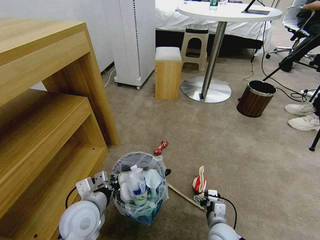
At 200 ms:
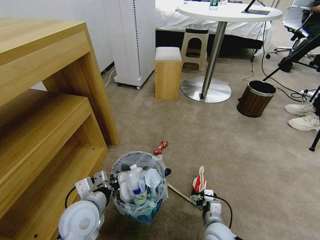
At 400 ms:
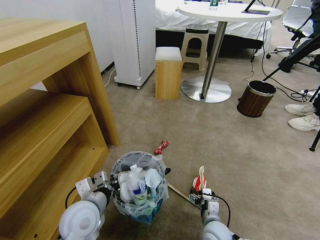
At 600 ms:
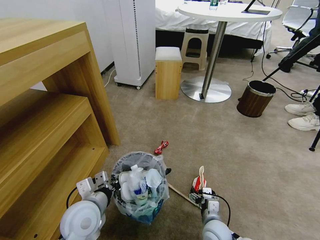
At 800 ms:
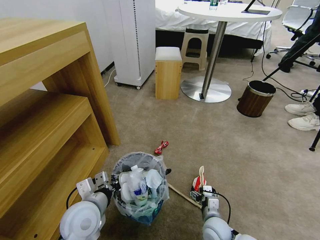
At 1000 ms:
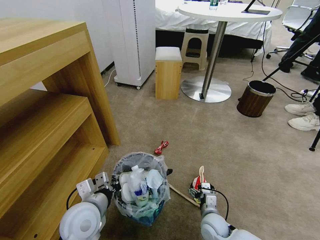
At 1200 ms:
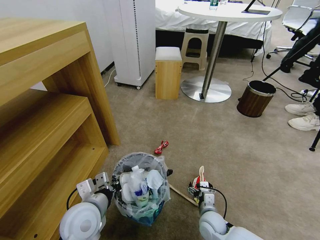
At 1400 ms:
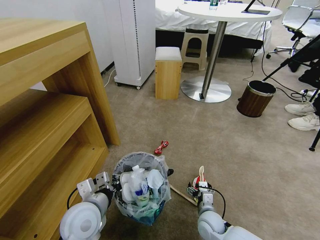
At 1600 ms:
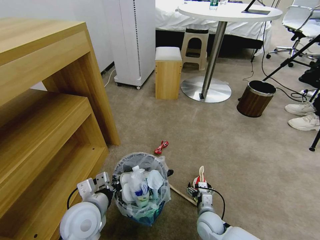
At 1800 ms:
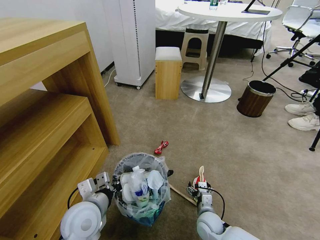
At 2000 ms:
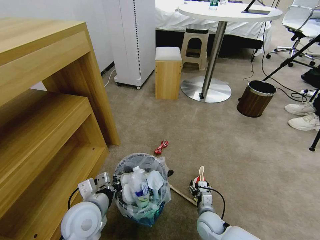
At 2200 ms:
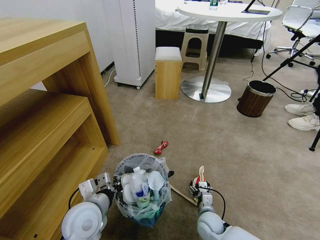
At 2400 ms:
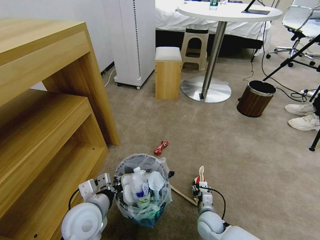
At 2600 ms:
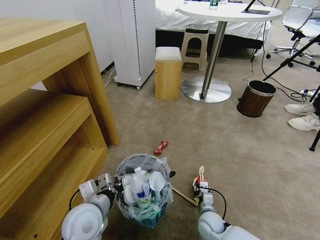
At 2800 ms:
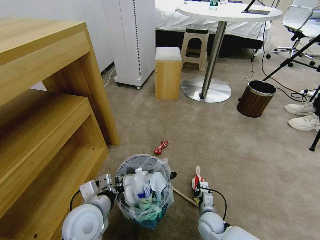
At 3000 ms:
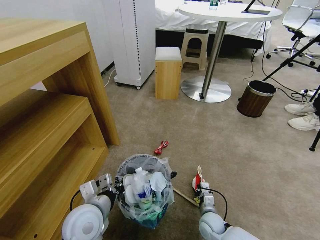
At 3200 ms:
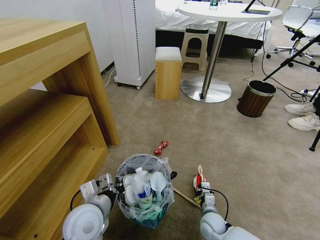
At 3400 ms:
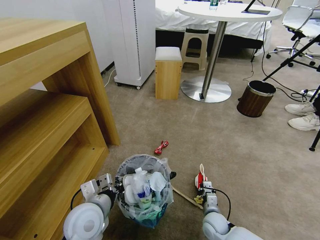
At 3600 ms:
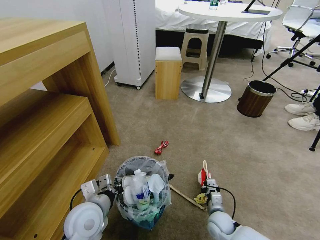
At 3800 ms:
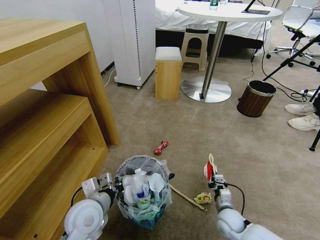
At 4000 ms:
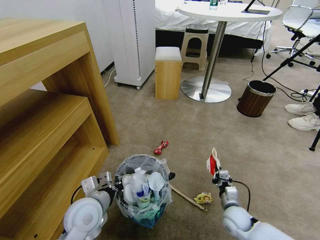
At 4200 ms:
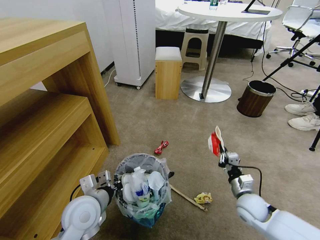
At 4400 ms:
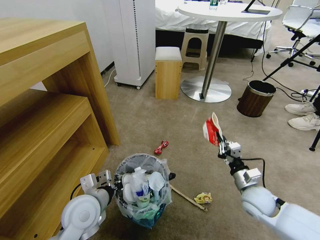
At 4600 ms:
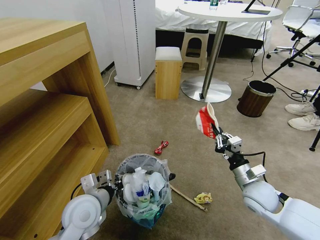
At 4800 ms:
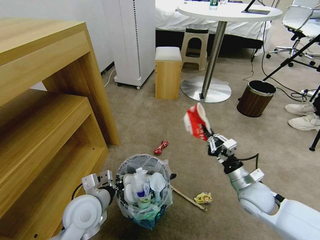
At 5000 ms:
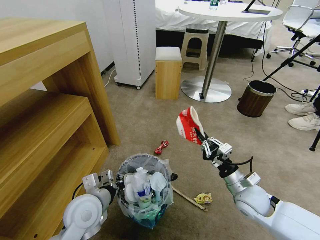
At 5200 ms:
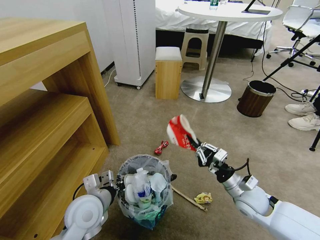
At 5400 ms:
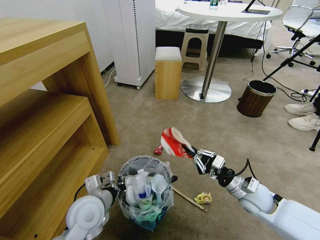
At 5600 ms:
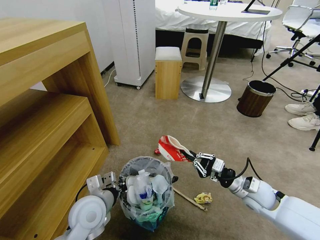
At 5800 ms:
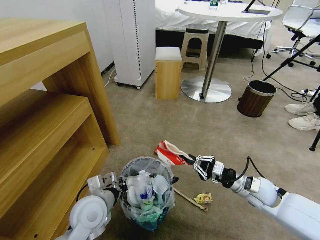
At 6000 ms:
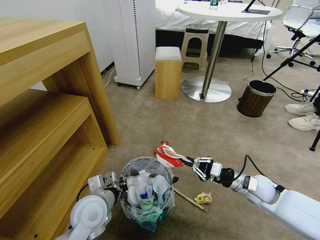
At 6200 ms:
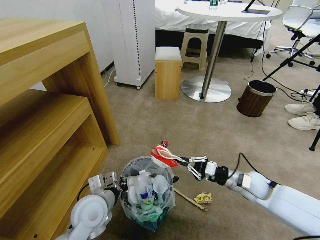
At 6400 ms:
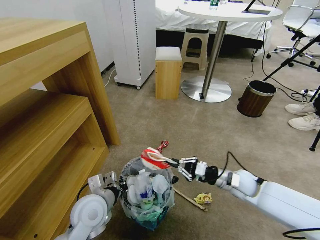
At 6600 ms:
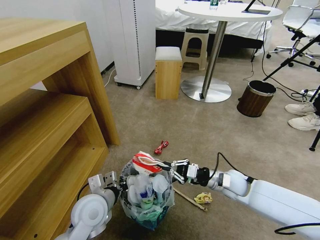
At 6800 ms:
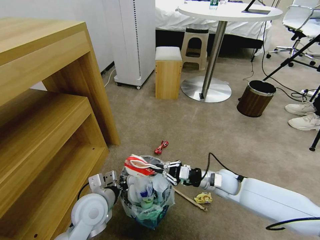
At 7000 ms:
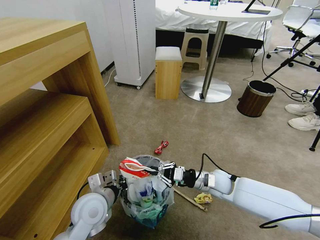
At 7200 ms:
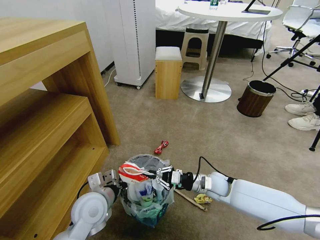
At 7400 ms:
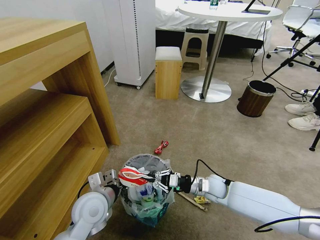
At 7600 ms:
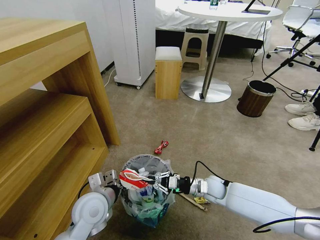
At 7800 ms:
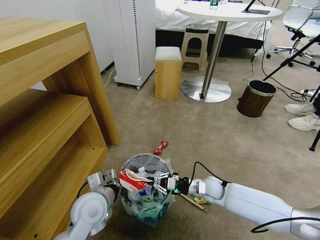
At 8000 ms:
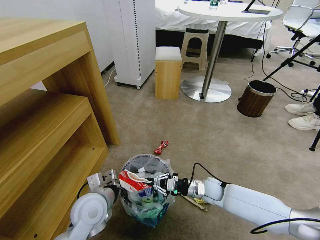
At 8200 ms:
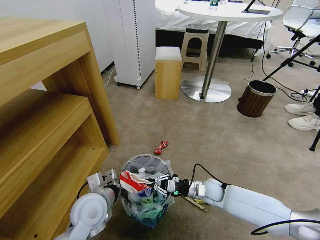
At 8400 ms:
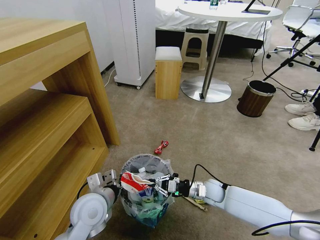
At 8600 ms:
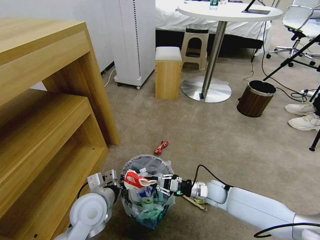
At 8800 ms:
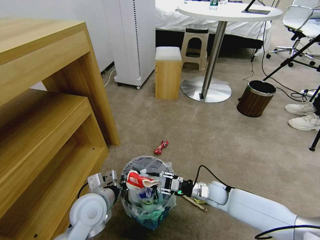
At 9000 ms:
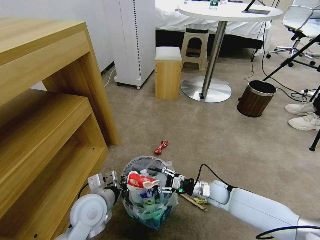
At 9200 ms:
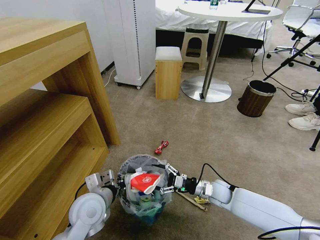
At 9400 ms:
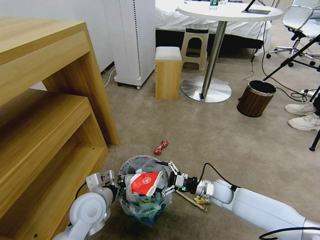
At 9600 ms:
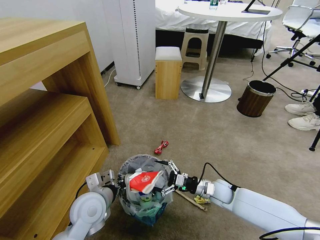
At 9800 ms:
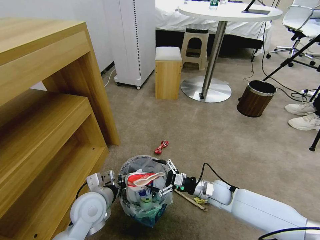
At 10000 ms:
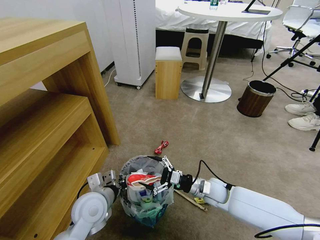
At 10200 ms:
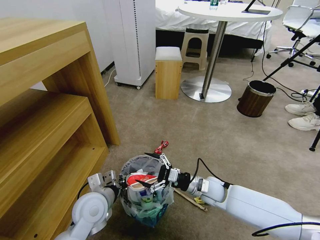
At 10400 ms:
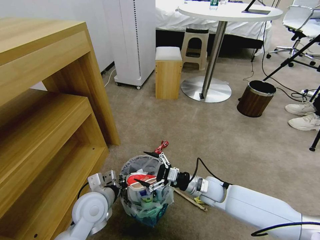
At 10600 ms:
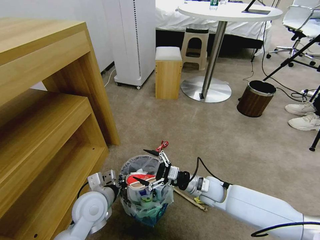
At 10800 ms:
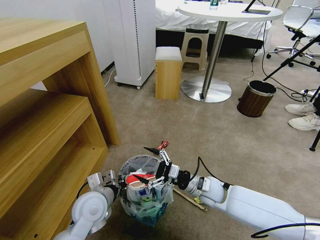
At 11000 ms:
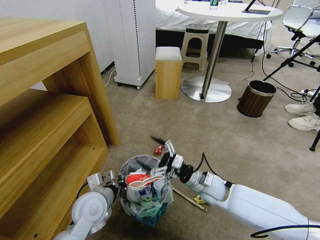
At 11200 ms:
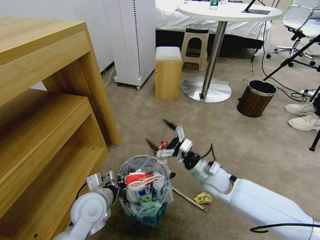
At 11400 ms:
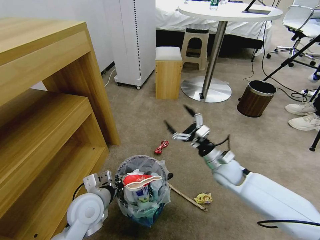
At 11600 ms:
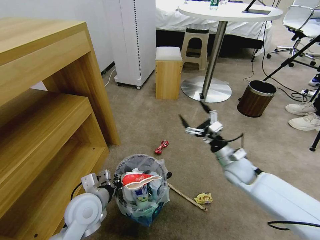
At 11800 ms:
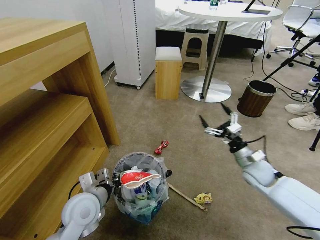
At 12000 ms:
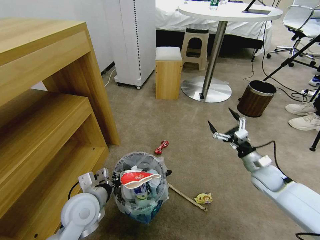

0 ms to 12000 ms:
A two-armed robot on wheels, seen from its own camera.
Task of the whole recording: Pick up the trash bin and place the garbage on the floor into it.
0 ms to 1600 ms: The right gripper shifts by about 5 cm.
1600 ms to 3000 ms: The right gripper closes.
3000 ms to 4400 ms: The right gripper is displaced upward and to the right by some 20 cm.
6000 ms to 7600 ms: The right gripper goes some 15 cm to the left and downward.
7600 ms to 9000 ms: The right gripper opens its fingers.
9000 ms to 10400 ms: The right gripper is displaced upward by roughly 5 cm, and opens up.
10400 ms to 12000 ms: The right gripper goes approximately 20 cm to the right.

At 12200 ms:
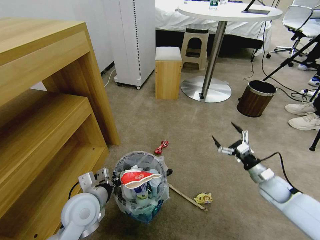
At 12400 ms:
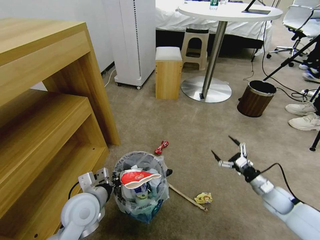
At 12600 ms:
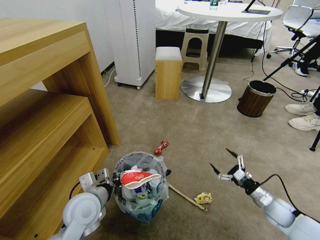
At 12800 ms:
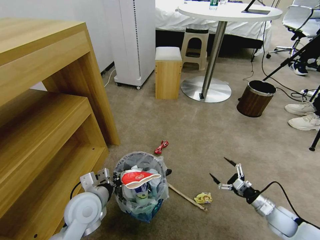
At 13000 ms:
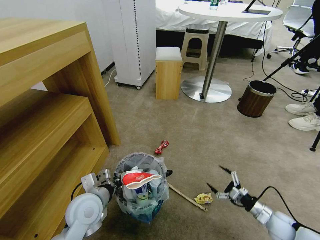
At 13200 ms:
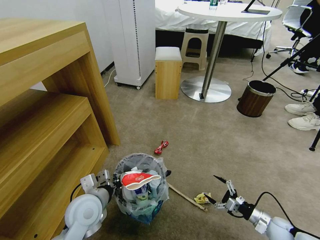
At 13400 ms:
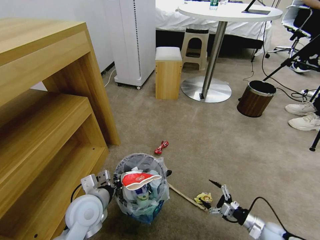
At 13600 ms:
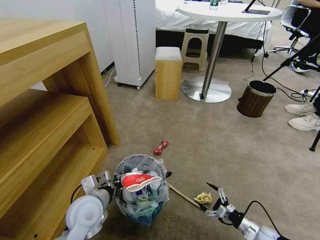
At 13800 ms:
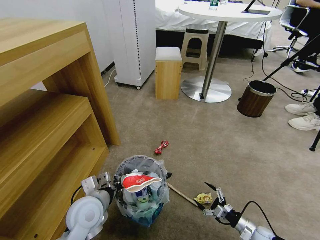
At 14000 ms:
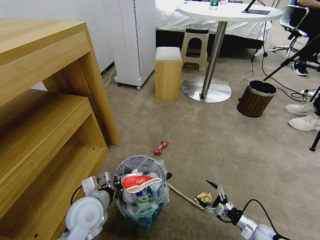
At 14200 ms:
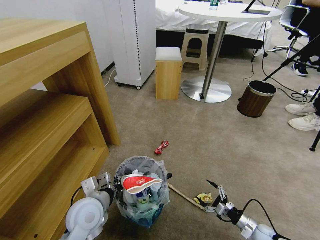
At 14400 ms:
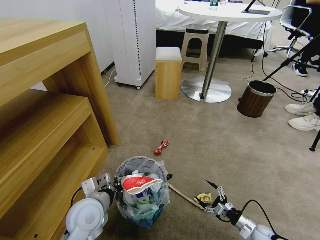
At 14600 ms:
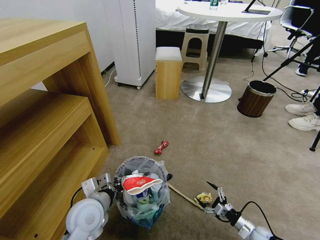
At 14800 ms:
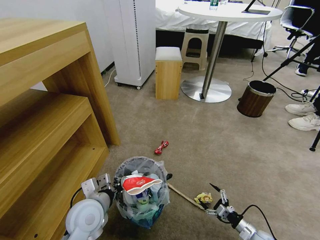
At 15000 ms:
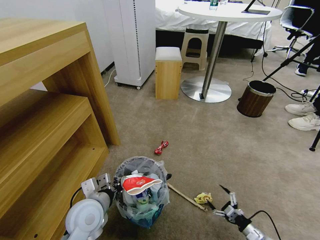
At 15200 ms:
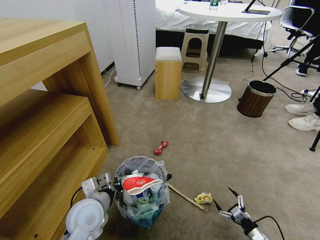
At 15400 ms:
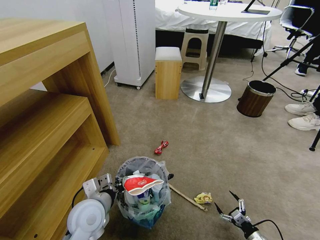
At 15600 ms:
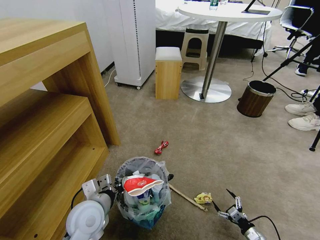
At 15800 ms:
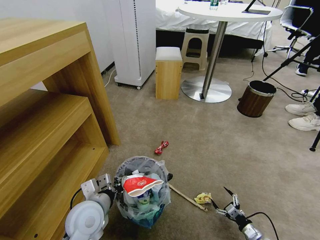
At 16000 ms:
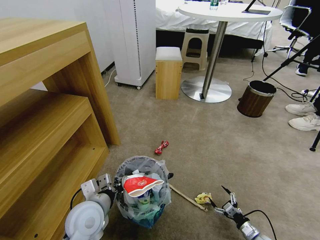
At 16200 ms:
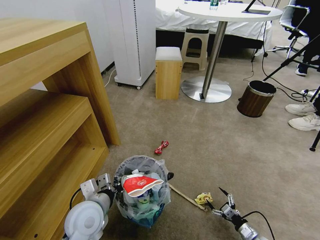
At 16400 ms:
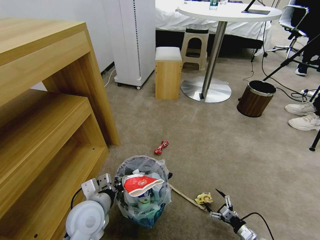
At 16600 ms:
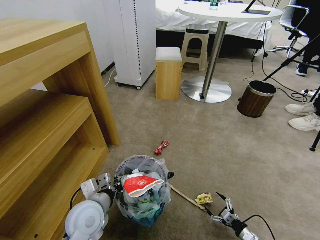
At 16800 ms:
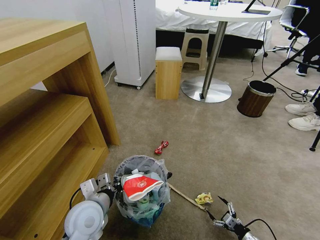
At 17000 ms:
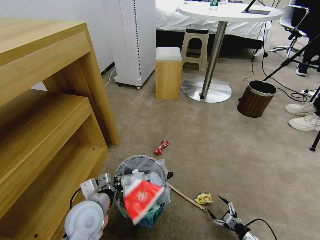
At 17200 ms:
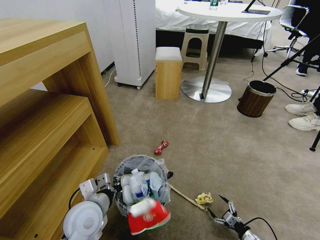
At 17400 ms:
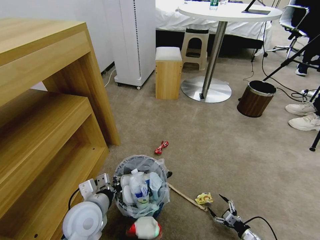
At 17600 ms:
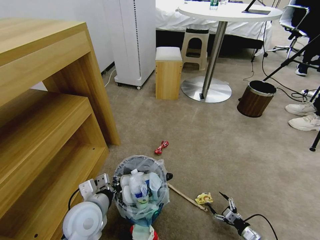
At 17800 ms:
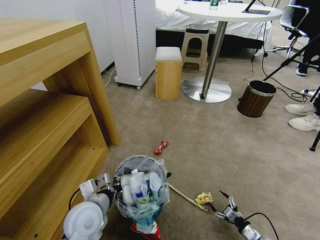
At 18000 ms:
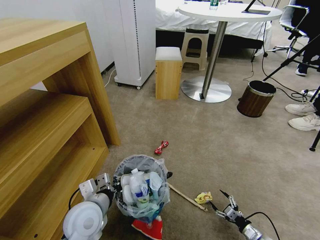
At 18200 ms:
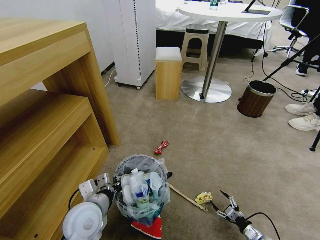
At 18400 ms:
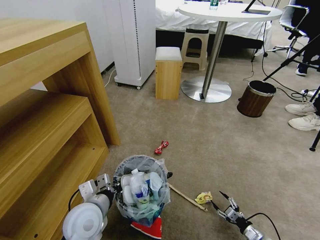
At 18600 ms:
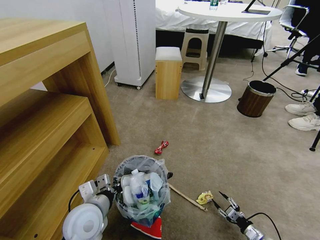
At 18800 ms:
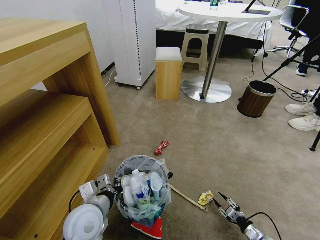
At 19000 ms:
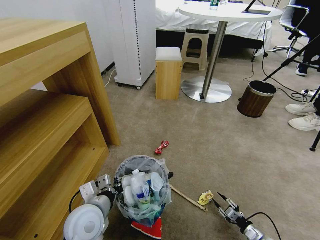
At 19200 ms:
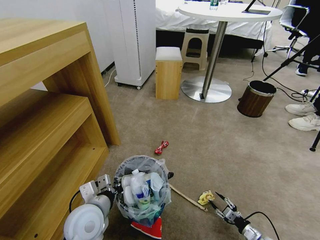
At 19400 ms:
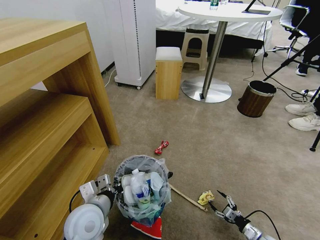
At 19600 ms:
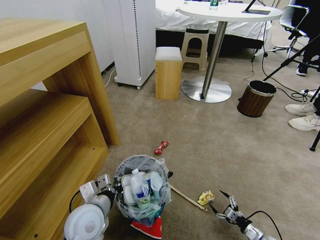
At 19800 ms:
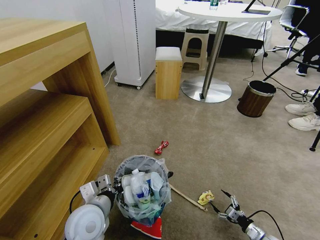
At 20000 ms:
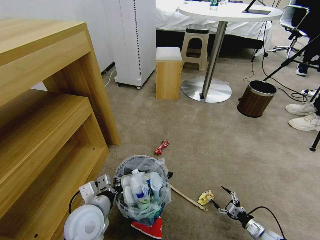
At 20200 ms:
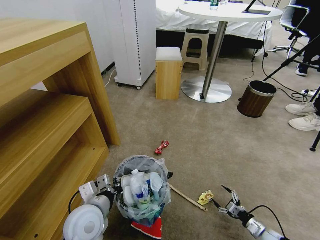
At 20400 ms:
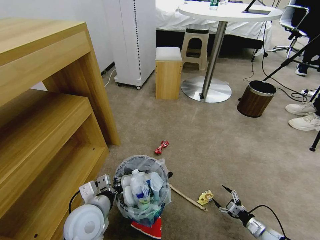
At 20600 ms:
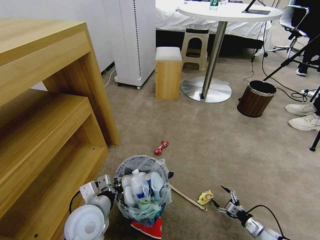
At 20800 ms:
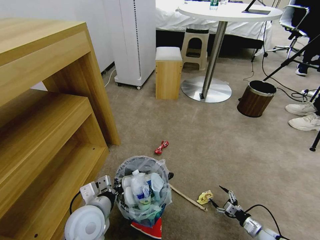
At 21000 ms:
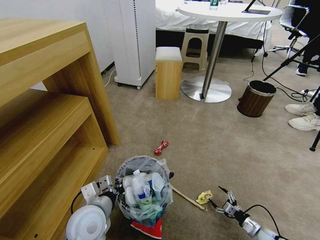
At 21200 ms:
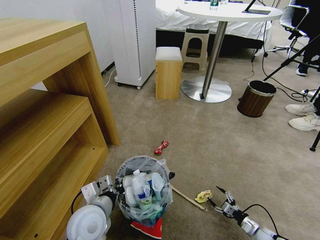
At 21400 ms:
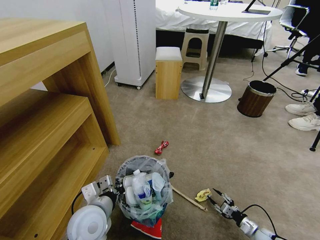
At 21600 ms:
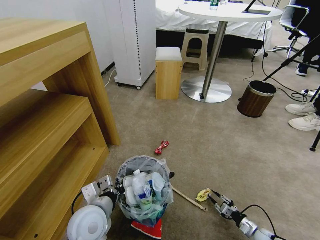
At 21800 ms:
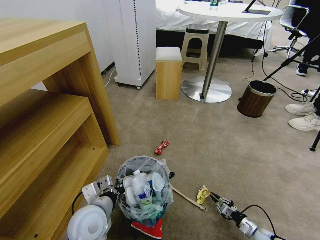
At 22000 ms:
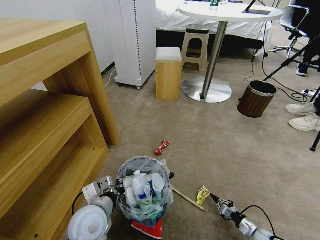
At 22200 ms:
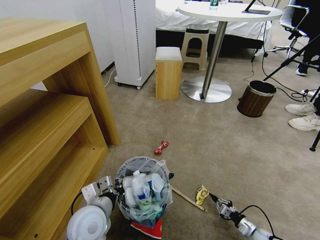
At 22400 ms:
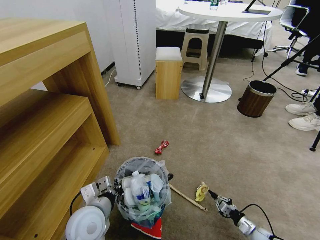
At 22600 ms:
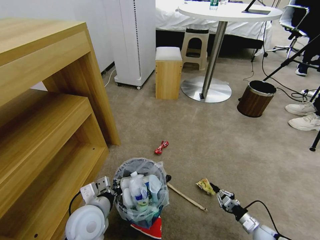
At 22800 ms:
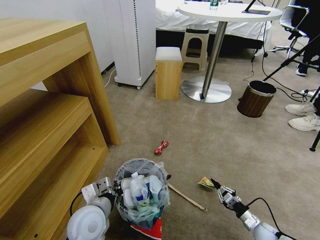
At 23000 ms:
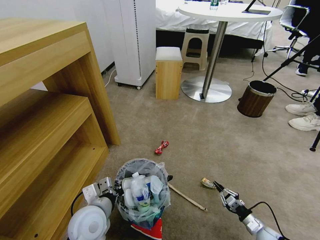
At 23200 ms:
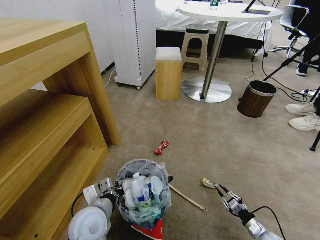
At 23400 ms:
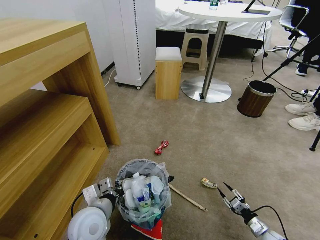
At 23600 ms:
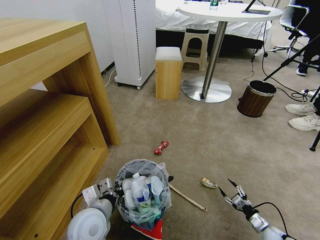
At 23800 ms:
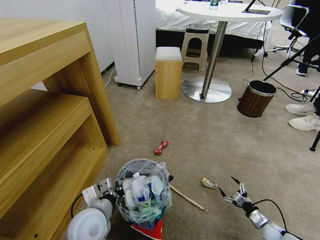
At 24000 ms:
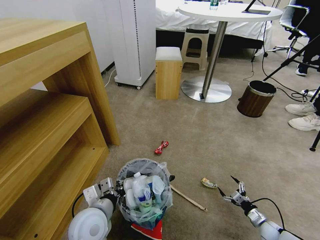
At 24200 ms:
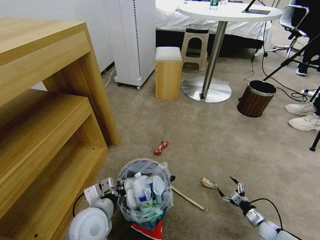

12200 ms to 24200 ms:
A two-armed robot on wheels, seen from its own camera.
Task of the whole recording: Pick up the trash bin and place the garbage on the floor into it.
12200 ms to 13800 ms: The right gripper heads downward and backward, covering some 20 cm.
13800 ms to 15200 ms: The right gripper moves approximately 5 cm.
15200 ms to 19800 ms: The grippers stay close to where they were, moving slightly.
19800 ms to 21200 ms: There are only small adjustments of the grippers.
21200 ms to 22600 ms: The right gripper closes its fingers.
22600 ms to 24200 ms: The right gripper changes place by roughly 5 cm, and opens.
